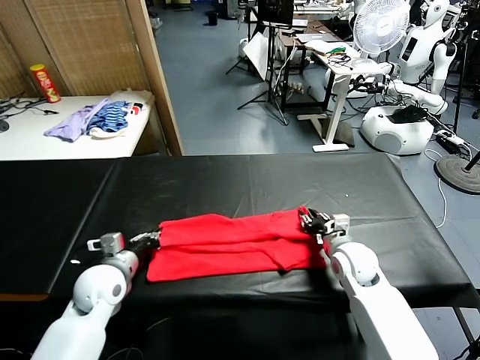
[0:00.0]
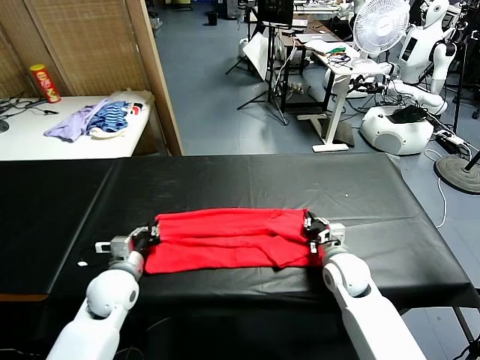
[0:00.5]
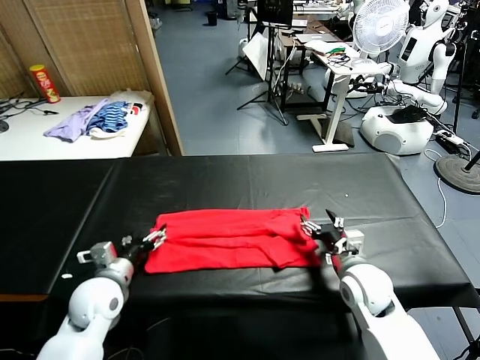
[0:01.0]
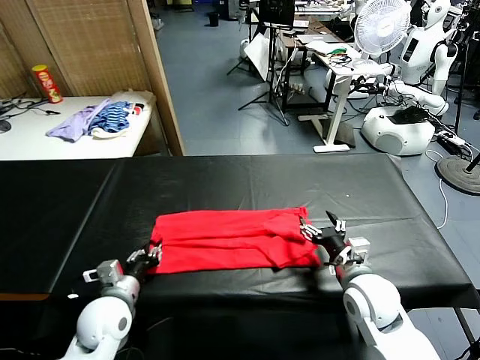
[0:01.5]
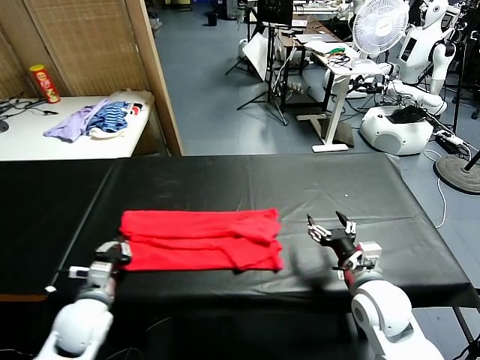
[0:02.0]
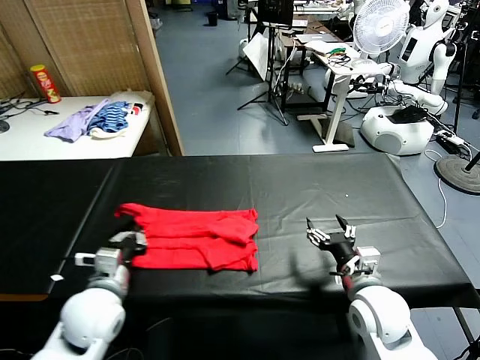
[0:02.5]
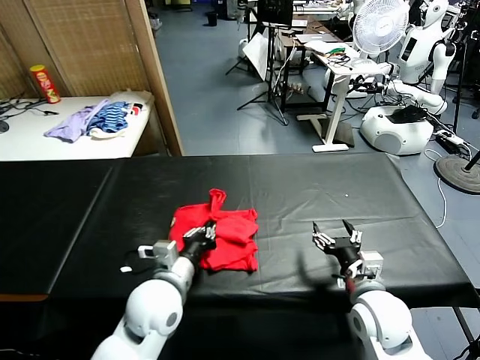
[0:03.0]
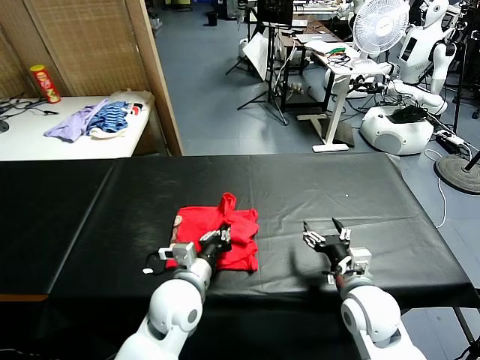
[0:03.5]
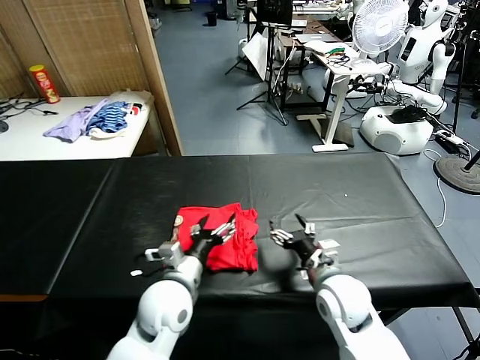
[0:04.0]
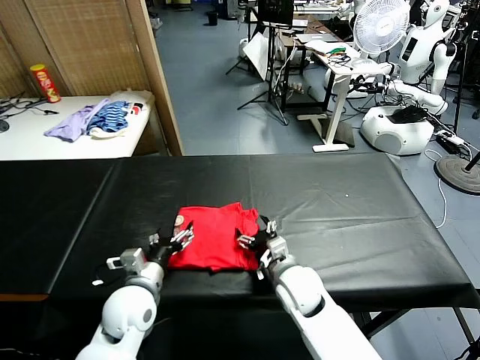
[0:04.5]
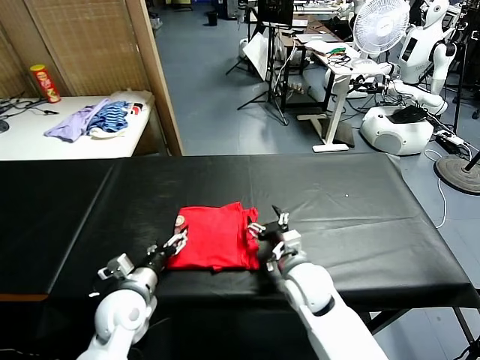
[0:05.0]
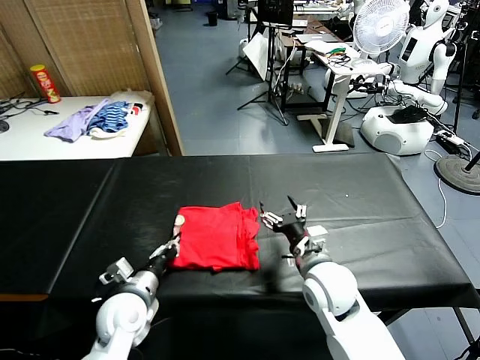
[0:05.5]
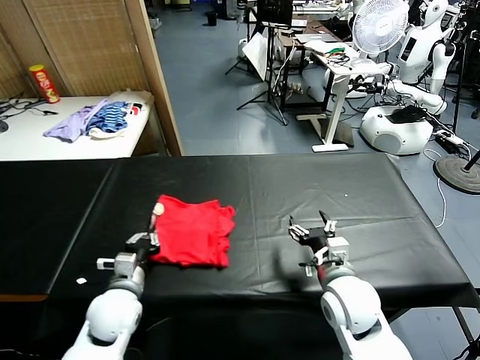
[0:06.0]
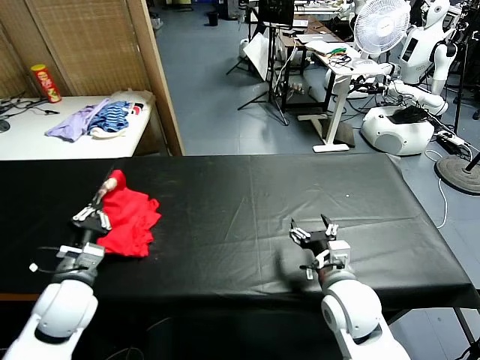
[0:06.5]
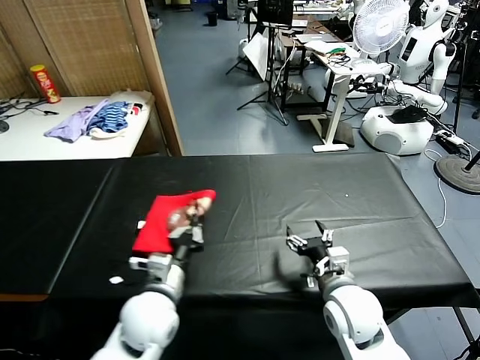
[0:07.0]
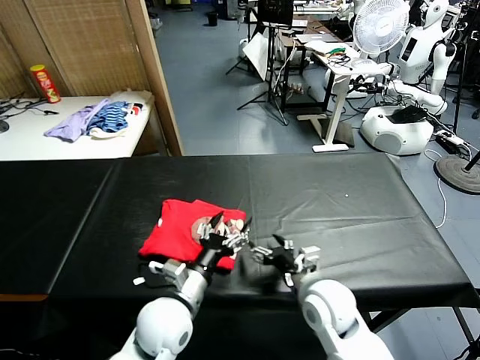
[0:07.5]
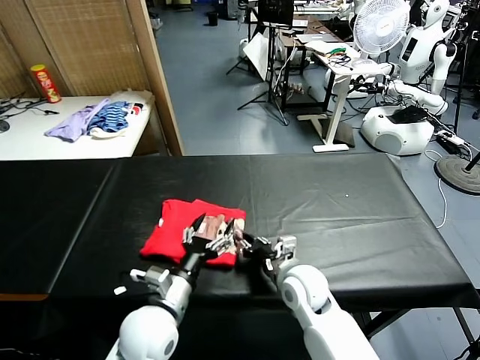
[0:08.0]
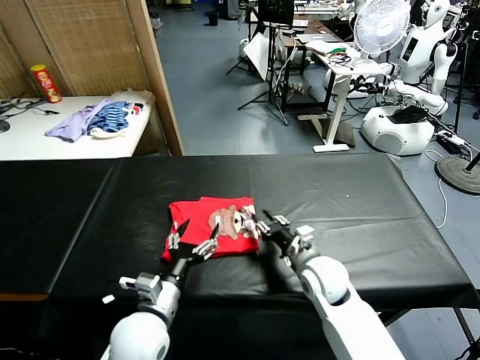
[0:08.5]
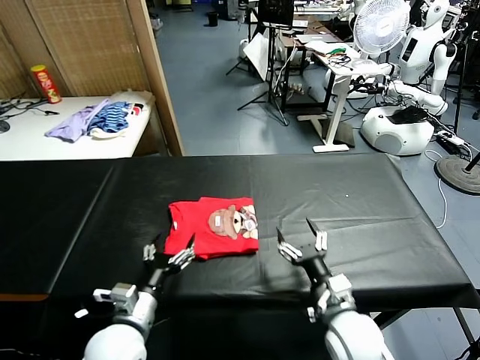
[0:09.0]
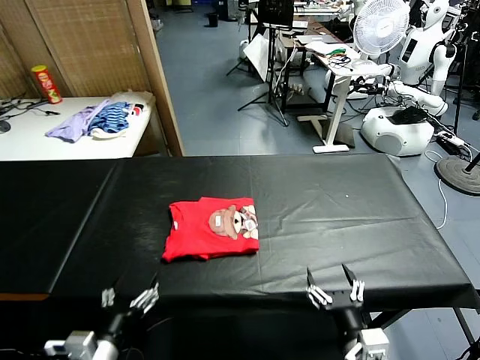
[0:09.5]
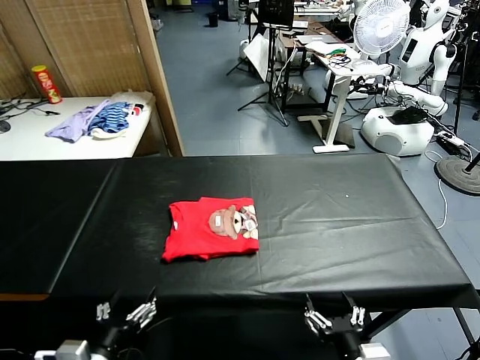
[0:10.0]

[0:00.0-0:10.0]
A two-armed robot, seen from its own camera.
Task of the whole recording: fold and organize the clothes.
Step, 0:00.0 to 0:02.0: use the left gripper to clamp the left edge of the fabric.
Step, 0:02.5 to 0:03.5: use the left gripper to drag the left edge of the fabric to the left and folds it over the right edge.
Step, 0:04.0 to 0:07.0: Flip the folded clothes over with left gripper.
Step, 0:07.5 to 0:08.5: Drag the clothes to the center of the table.
0:00.0 to 0:02.0: The right gripper is displaced backward and upward by roughly 10 cm, and opens its fingers. The left gripper is displaced backward by approximately 5 cm, and opens, then closes again.
0:02.0 to 0:04.0: The right gripper travels to the left by about 10 cm. The left gripper heads to the right, covering approximately 20 cm, and opens its fingers.
0:04.0 to 0:06.0: The right gripper travels to the left and back again, roughly 5 cm each way. The left gripper heads to the left, covering roughly 10 cm, and closes its fingers.
0:06.0 to 0:08.0: The left gripper travels to the right by roughly 10 cm, and opens. Meanwhile the right gripper goes roughly 10 cm to the left, downward and forward, and closes.
0:08.0 to 0:10.0: The left gripper shifts approximately 15 cm backward and to the left. Meanwhile the right gripper heads backward, covering about 25 cm, and opens its fingers.
